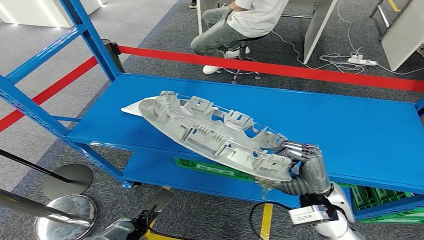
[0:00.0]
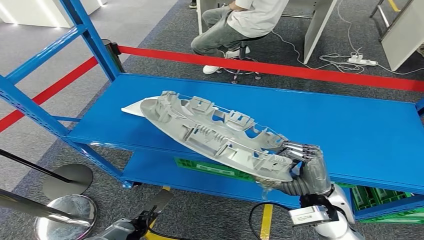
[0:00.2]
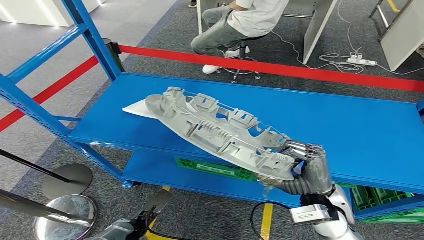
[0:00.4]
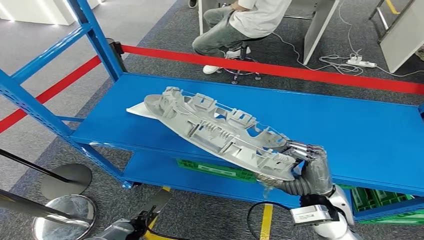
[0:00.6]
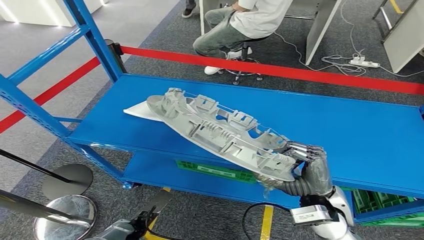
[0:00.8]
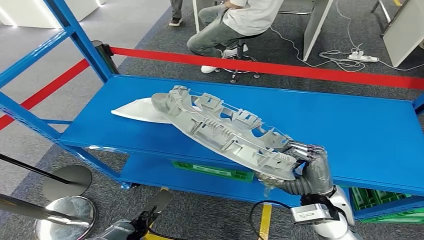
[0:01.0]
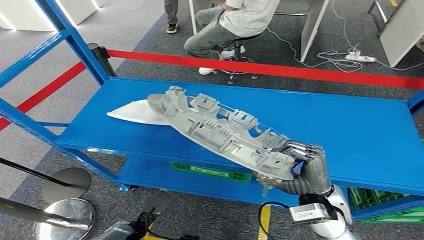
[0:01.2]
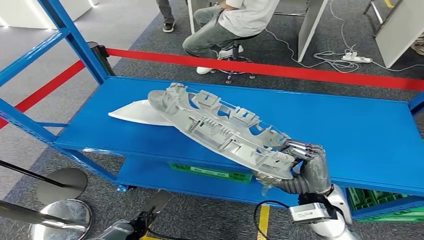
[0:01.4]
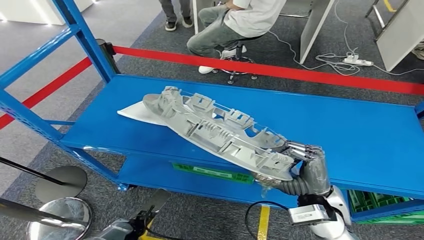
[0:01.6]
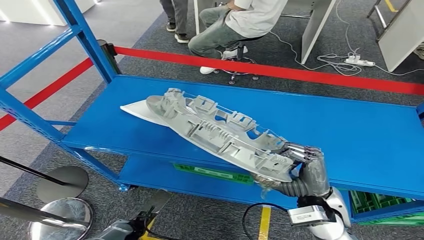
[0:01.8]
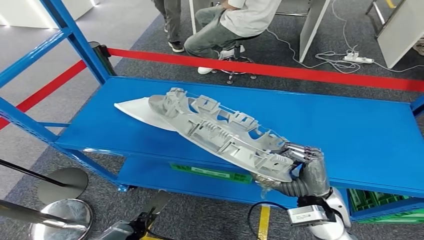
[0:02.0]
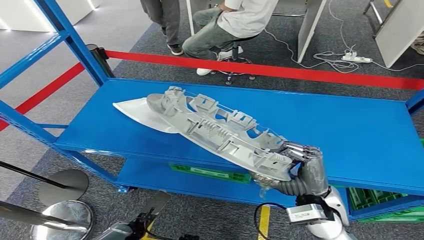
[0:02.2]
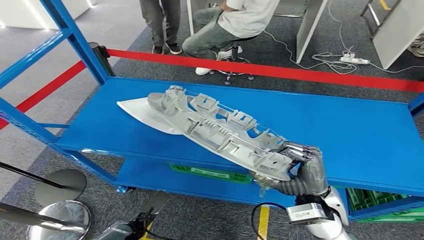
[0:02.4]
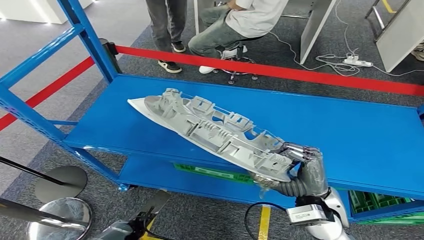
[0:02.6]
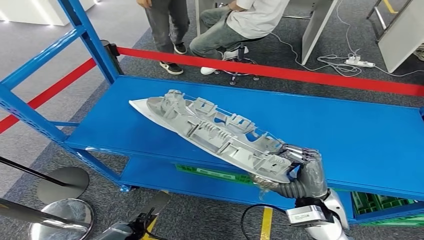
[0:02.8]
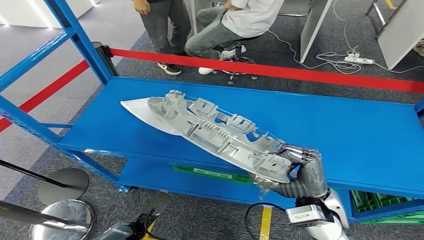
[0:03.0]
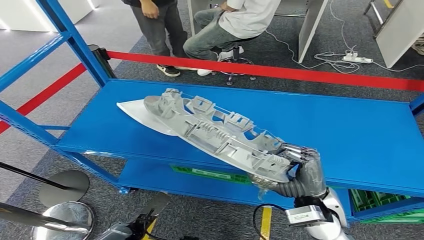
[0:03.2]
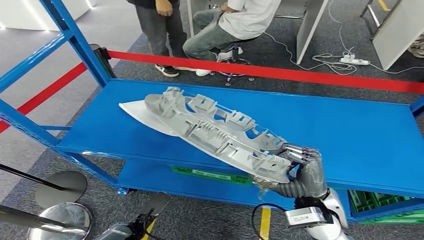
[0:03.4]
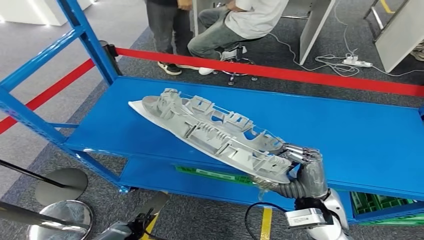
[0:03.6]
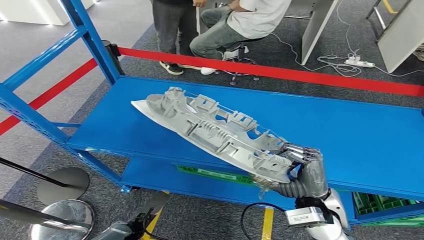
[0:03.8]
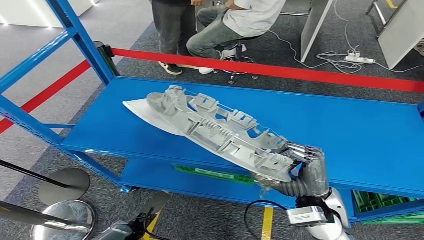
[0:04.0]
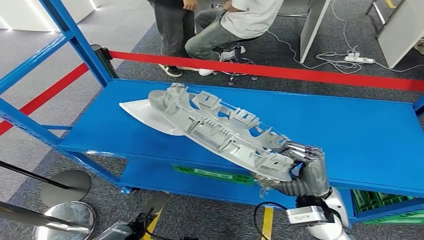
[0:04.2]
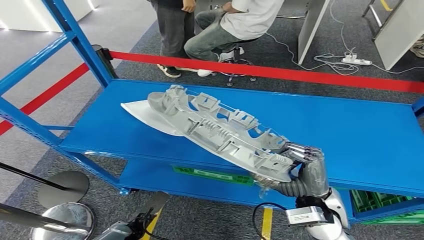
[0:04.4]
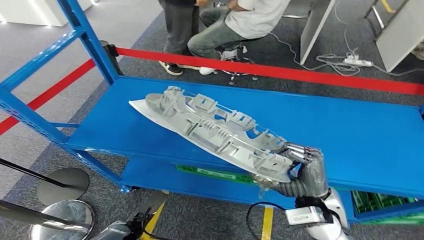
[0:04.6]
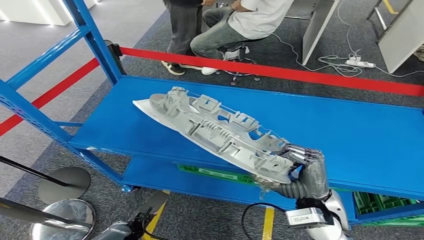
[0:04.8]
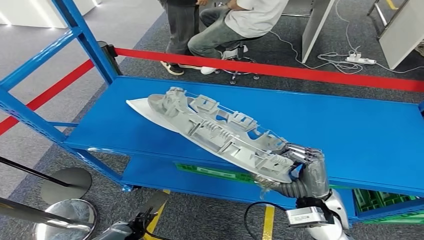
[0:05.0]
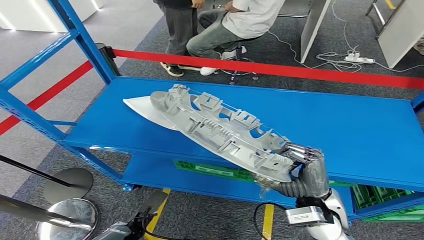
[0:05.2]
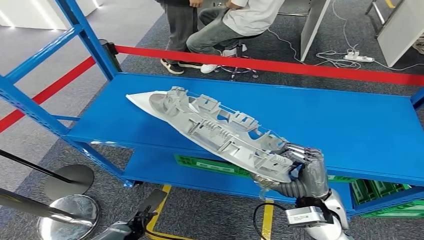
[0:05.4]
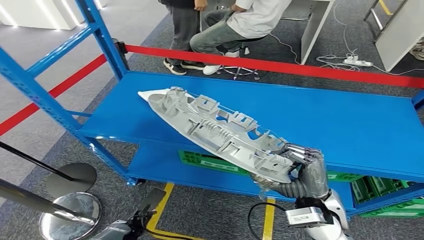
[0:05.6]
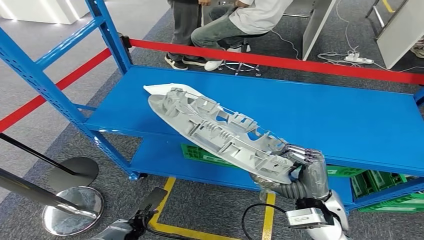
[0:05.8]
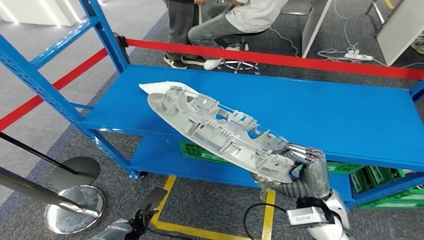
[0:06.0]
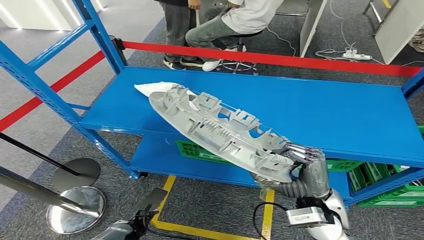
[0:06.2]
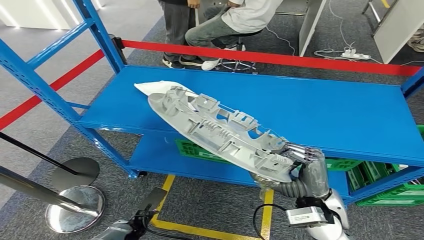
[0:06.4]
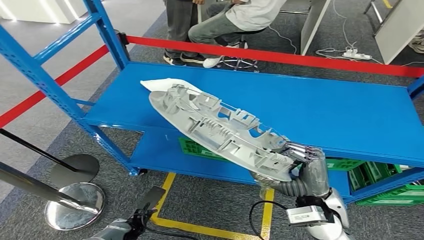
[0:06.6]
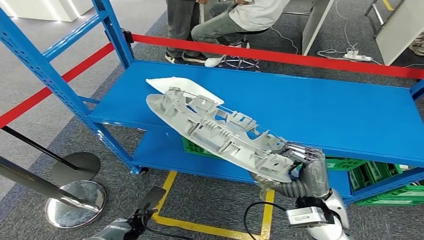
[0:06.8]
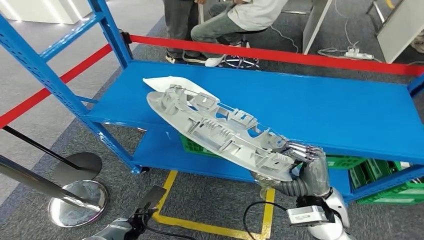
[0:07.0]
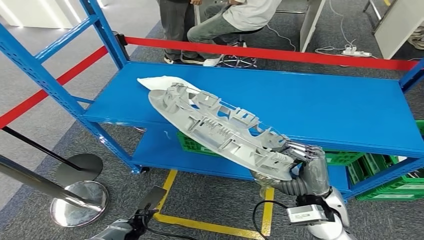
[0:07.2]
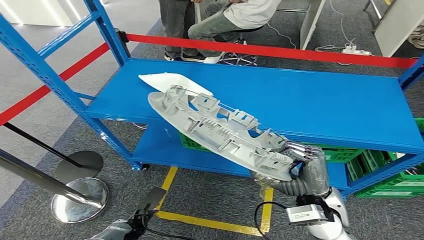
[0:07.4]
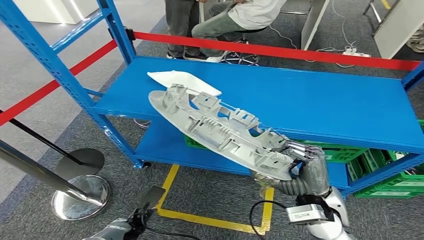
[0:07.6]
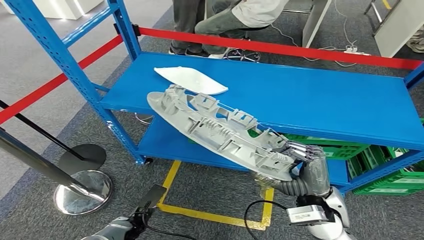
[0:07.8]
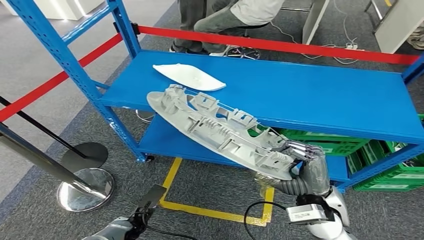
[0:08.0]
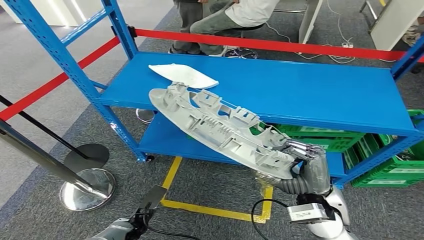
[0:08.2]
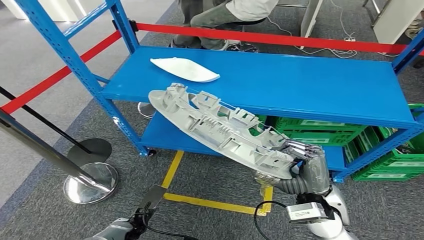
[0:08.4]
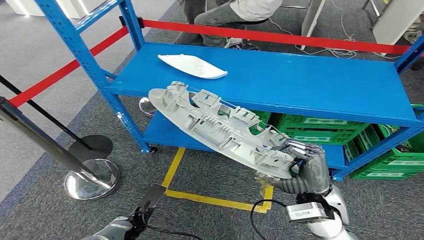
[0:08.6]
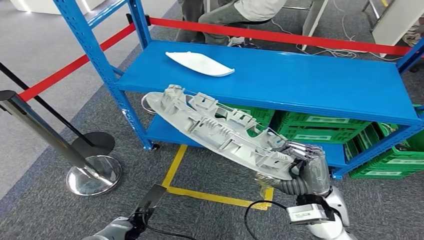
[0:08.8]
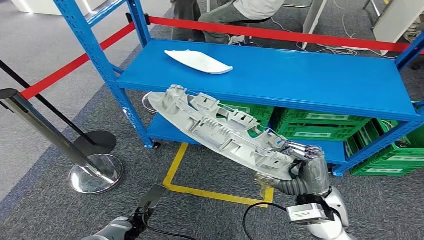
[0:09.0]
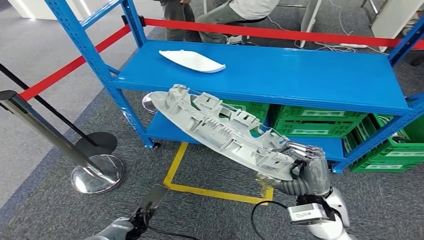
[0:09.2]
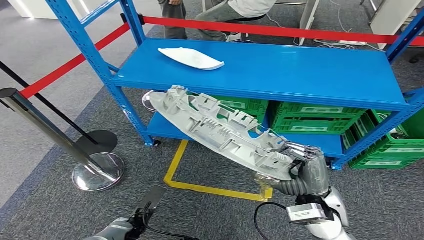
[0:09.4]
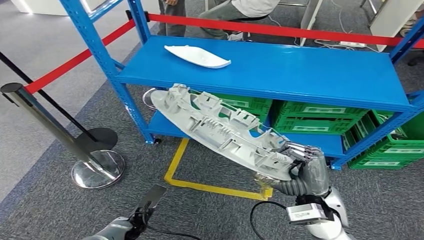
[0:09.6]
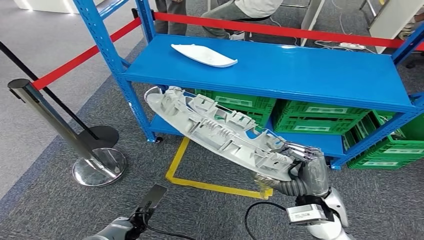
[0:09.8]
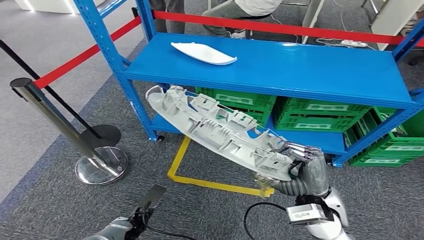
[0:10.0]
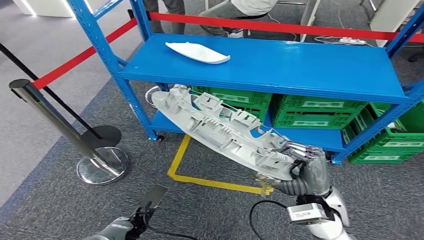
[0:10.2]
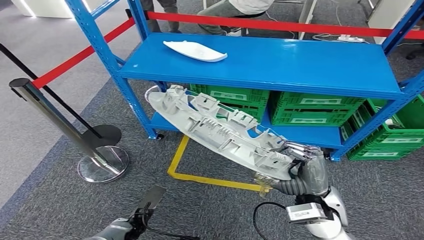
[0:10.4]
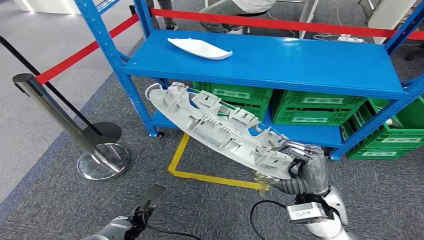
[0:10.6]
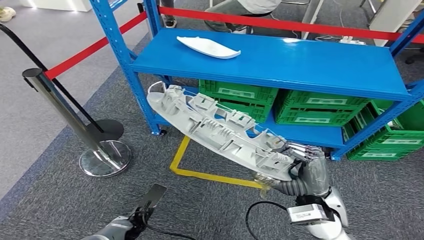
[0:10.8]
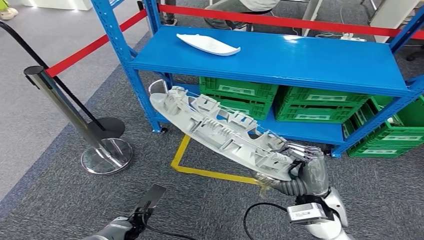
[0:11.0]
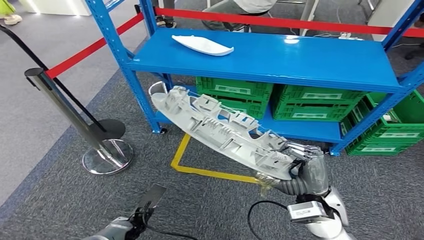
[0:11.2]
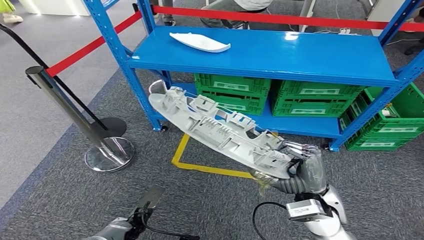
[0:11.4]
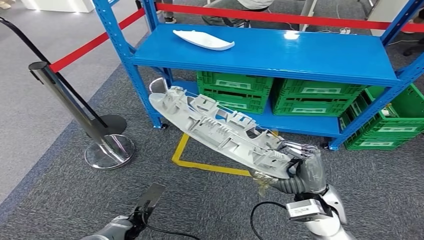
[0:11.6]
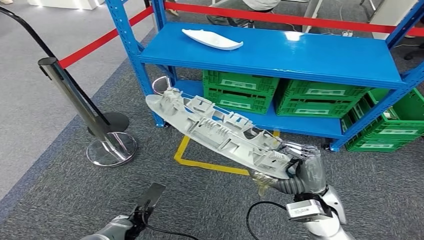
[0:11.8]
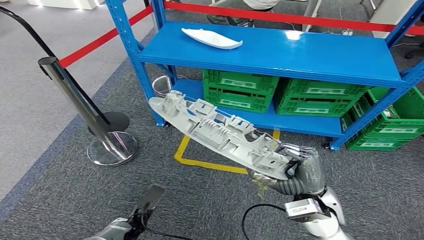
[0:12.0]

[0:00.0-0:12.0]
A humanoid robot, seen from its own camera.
0:01.6 to 0:04.4: Both hands stay about where they are.

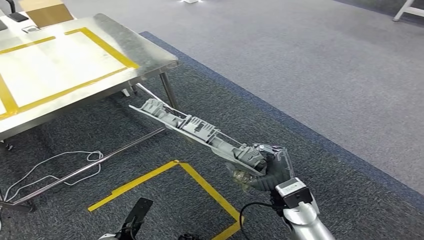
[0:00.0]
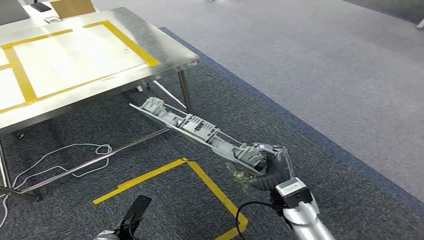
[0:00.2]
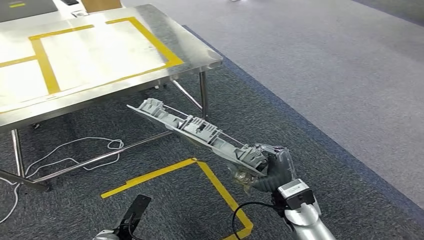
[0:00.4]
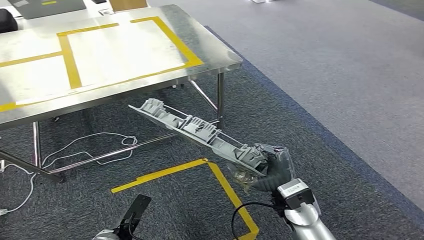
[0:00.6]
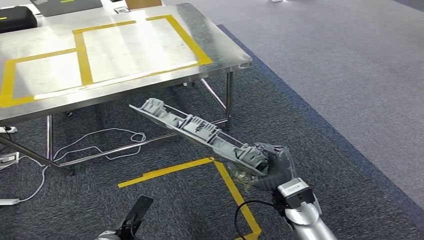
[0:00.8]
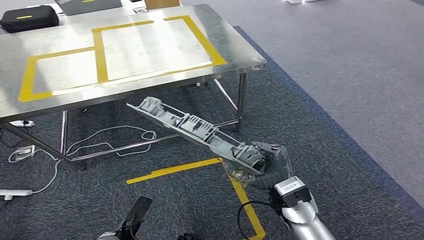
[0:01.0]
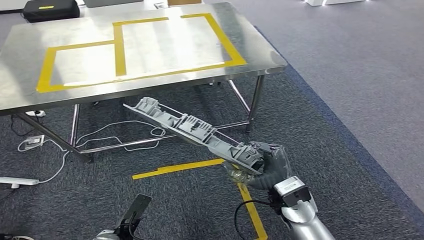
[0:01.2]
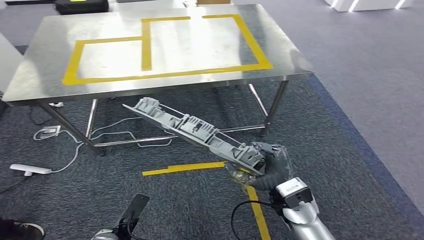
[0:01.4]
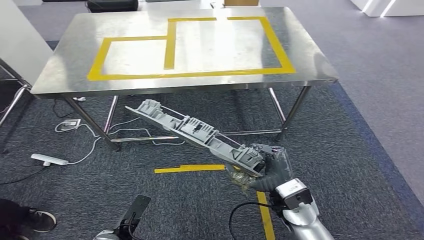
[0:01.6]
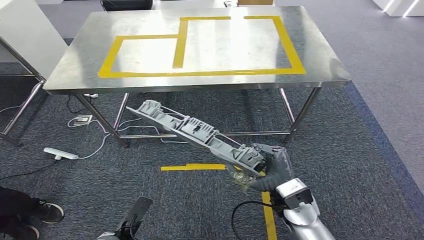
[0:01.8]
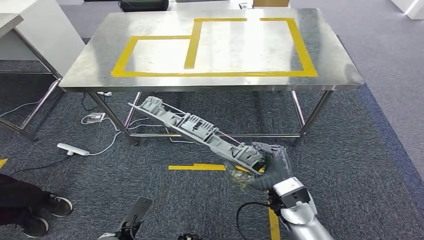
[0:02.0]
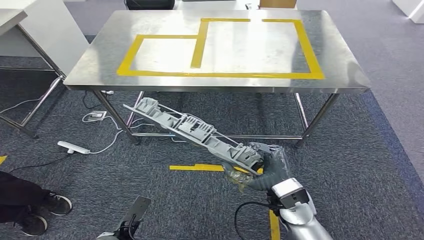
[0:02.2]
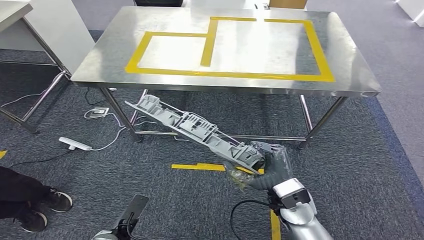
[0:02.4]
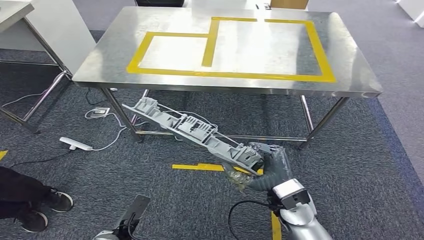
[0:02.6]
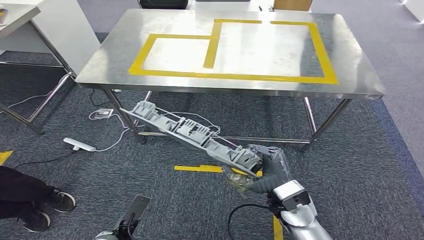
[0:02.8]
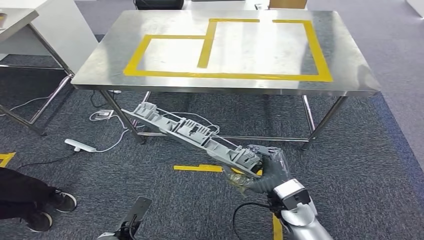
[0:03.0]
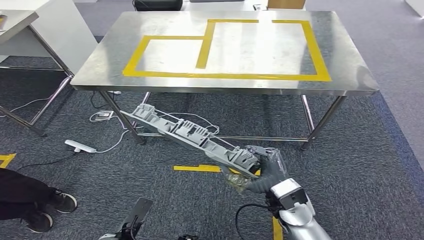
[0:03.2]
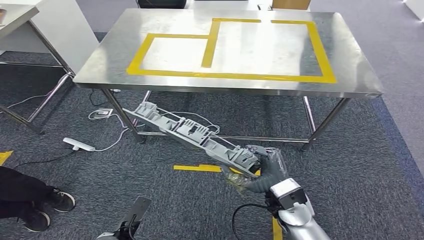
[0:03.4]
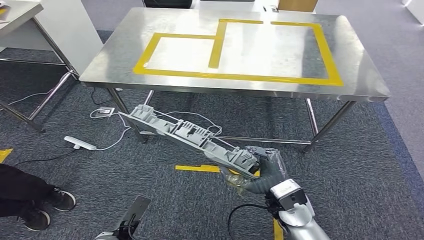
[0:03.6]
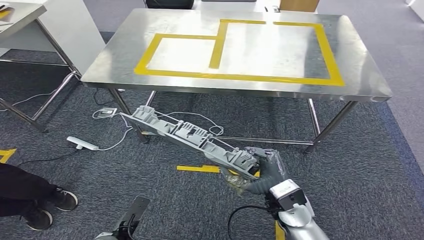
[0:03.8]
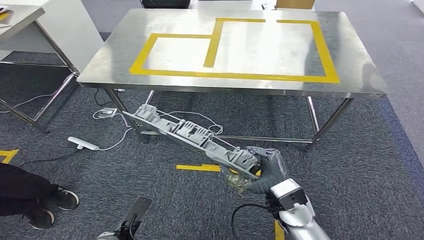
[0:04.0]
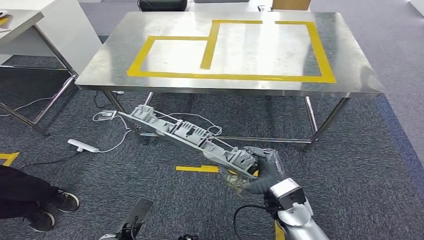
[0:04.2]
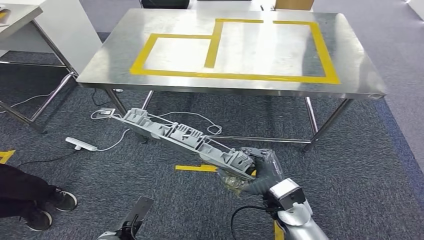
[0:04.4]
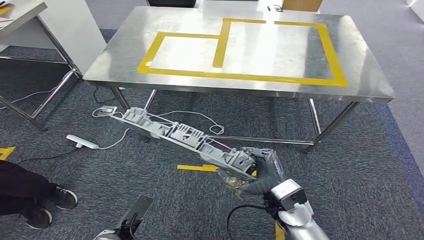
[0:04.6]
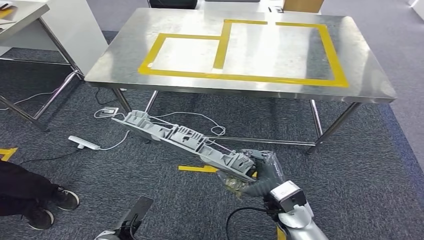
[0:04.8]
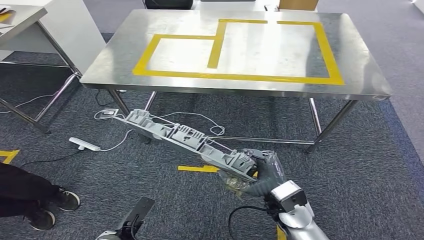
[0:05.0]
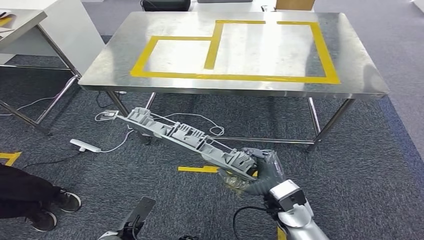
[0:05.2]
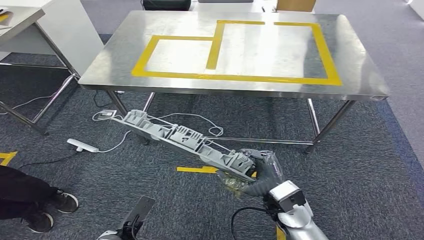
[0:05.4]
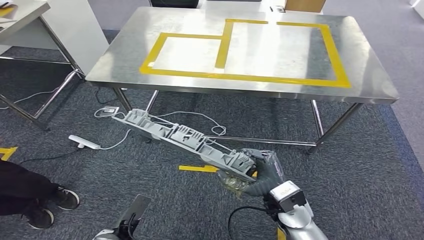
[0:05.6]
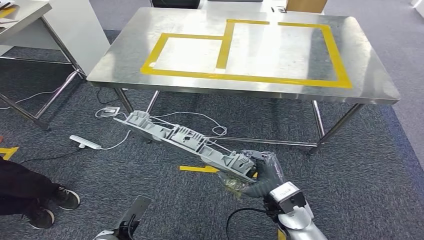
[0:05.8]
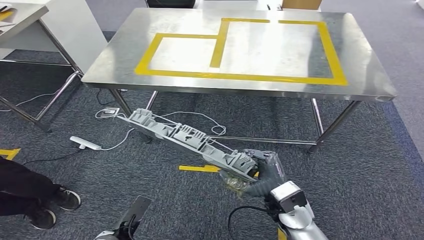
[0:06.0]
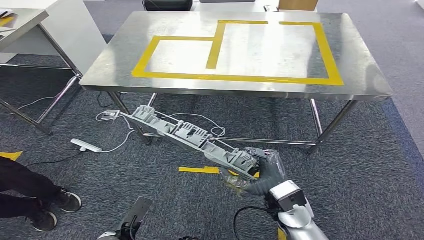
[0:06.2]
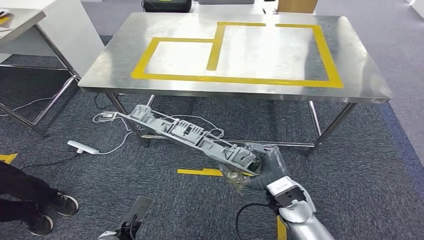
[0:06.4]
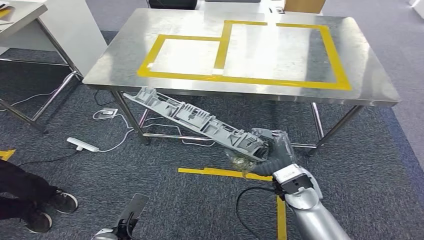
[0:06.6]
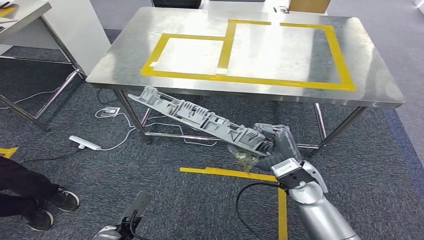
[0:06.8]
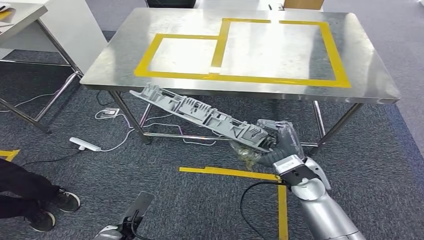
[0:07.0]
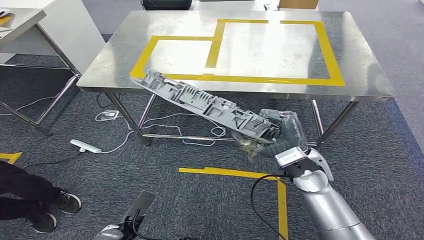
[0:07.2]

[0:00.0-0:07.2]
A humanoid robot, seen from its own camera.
0:02.8 to 0:04.4: The hands stay close to where they were, moving slightly.
0:04.4 to 0:05.8: Neither hand changes place.
